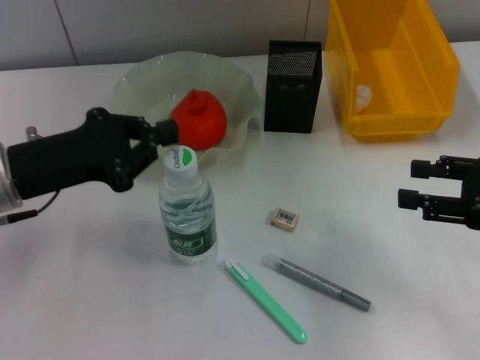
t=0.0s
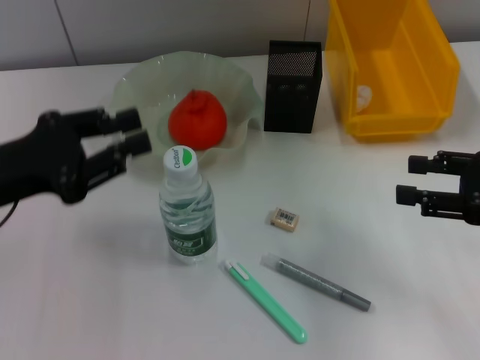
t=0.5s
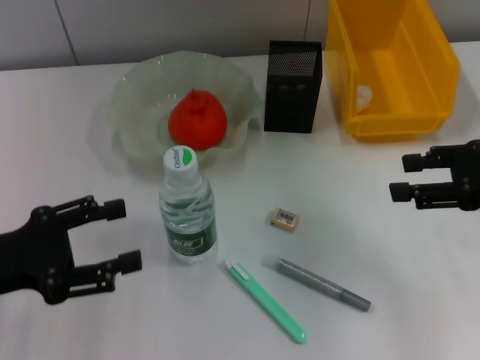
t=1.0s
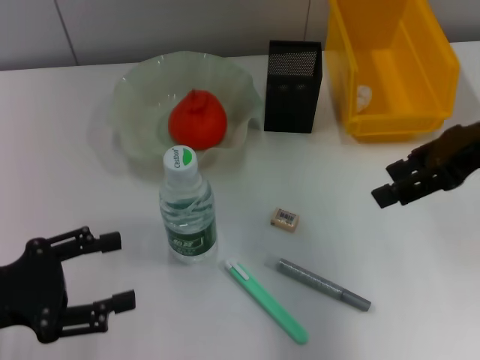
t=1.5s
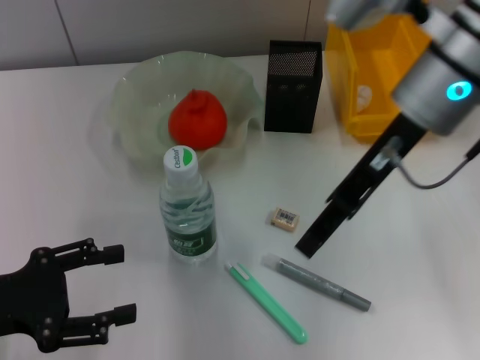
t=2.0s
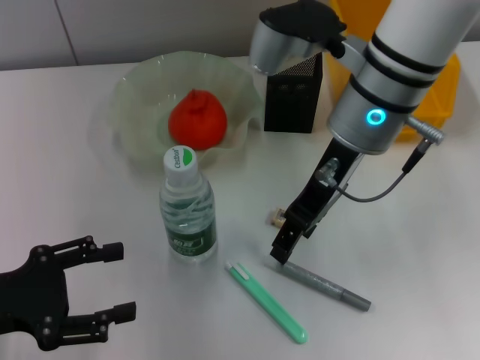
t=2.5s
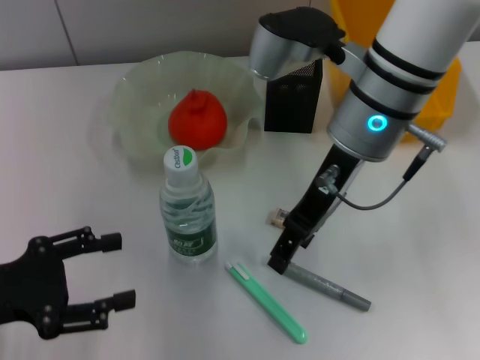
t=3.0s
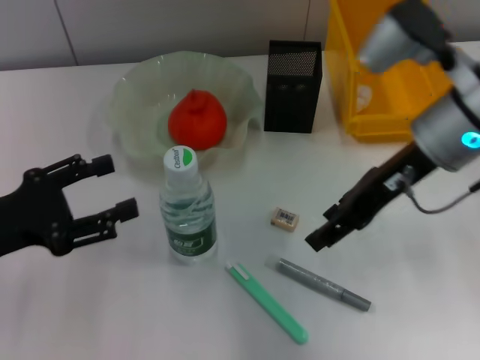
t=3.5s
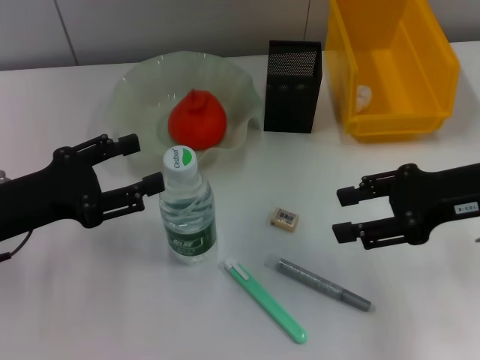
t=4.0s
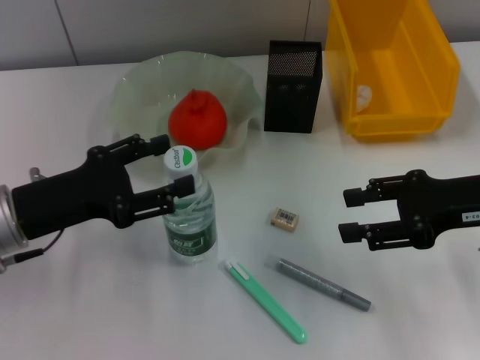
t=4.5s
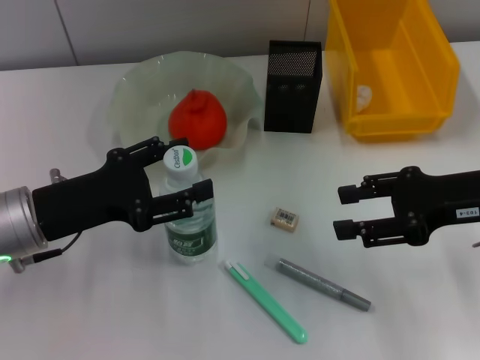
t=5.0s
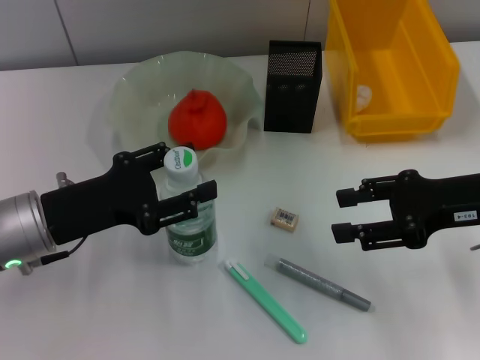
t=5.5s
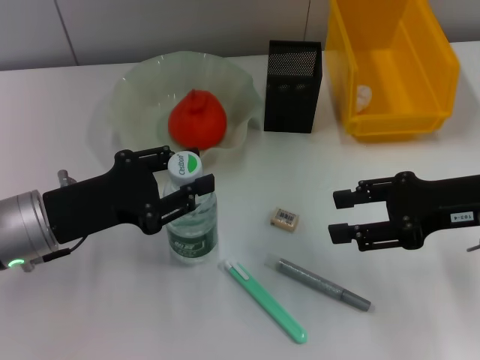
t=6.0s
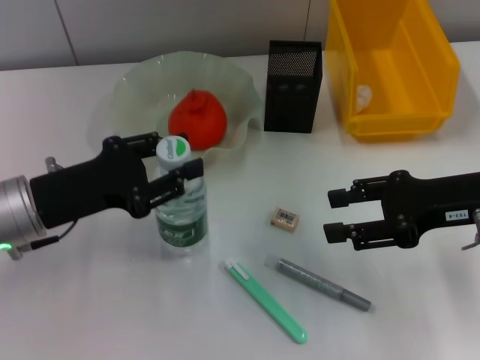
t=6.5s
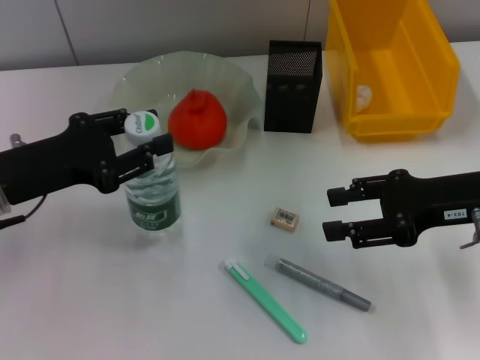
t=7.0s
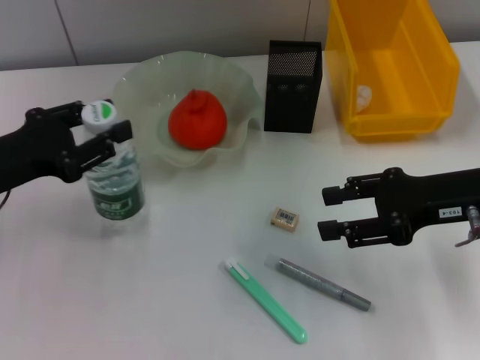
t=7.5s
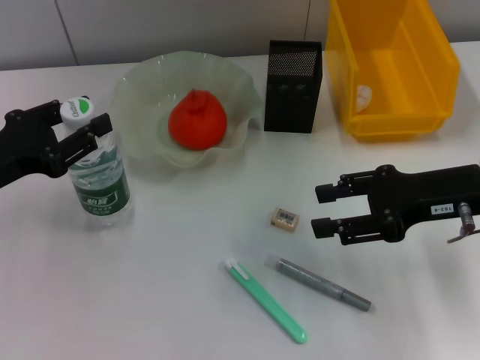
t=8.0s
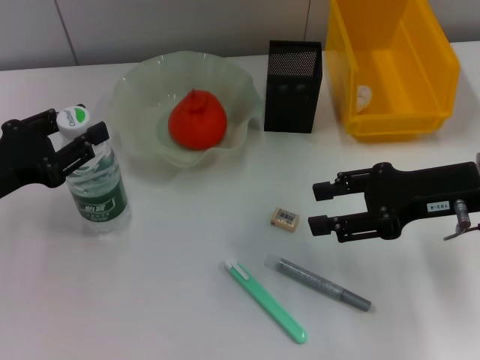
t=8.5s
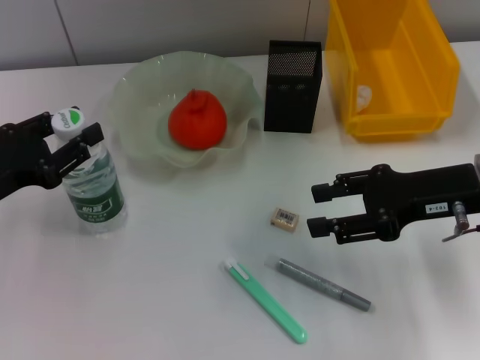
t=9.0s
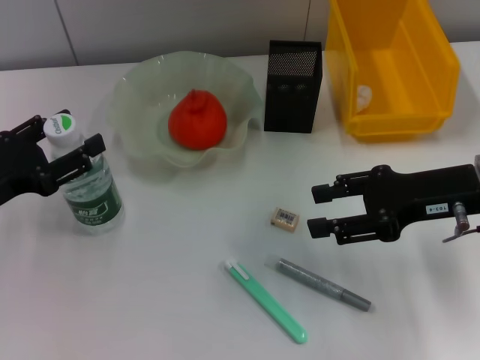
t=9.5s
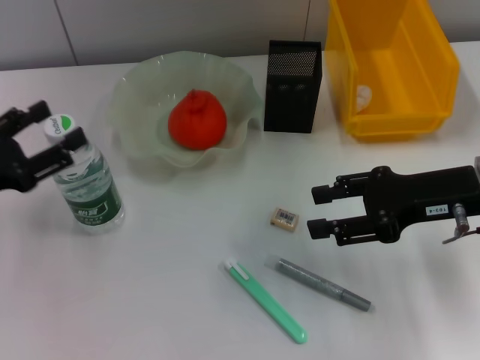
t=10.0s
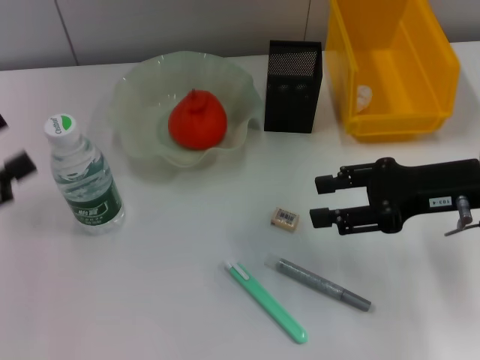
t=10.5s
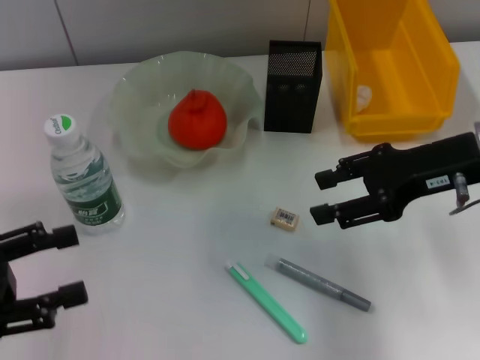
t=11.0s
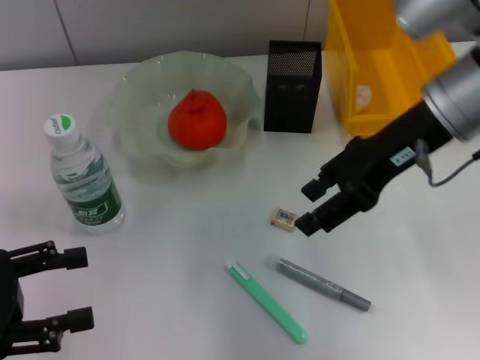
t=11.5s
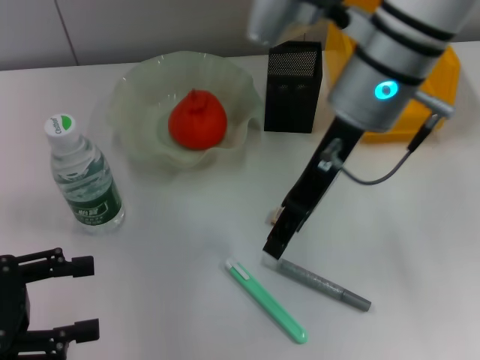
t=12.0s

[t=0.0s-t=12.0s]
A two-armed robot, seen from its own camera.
Step, t=0.0s to t=6.5s: Grab the water bottle with the left hand.
Step, t=7.0s to t=9.5s: Place the water bottle on the table with the left hand.
t=0.0s to t=2.0s: The left gripper shifts roughly 10 cm backward and to the left, and opens. The right gripper goes some 25 cm to the left, forward and upward.
t=2.0s to t=4.0s: The right gripper heads to the right, downward and backward, covering about 15 cm. Meanwhile the left gripper heads forward, covering some 5 cm.
t=4.0s to t=6.0s: The left gripper shifts by roughly 5 cm, and closes up.
t=6.0s to t=8.0s: The left gripper heads to the left, covering roughly 5 cm.
t=8.0s to t=10.0s: The left gripper opens its fingers.
t=10.0s to t=12.0s: The left gripper is displaced backward by some 5 cm; the right gripper shifts about 20 cm to the left, upward and forward.

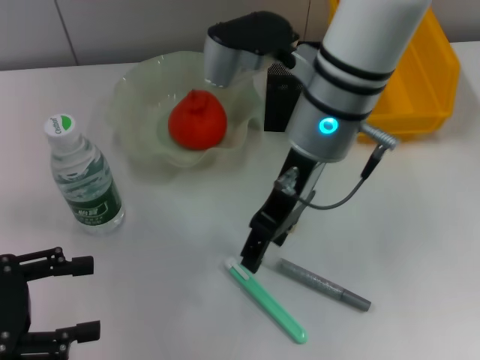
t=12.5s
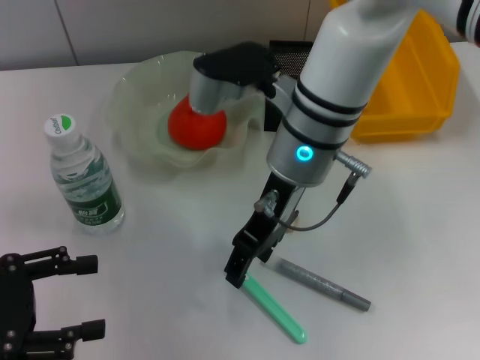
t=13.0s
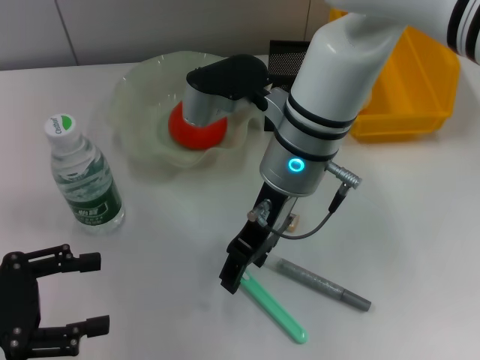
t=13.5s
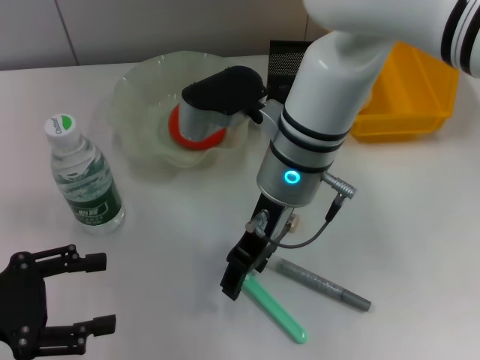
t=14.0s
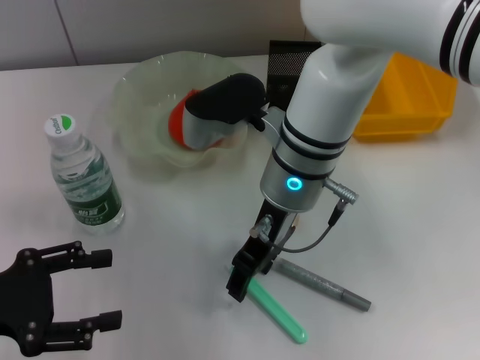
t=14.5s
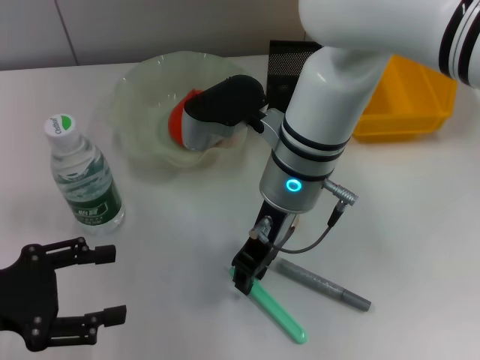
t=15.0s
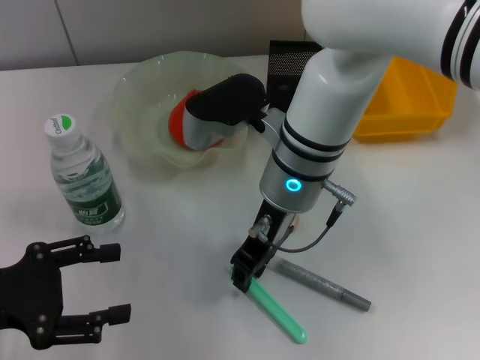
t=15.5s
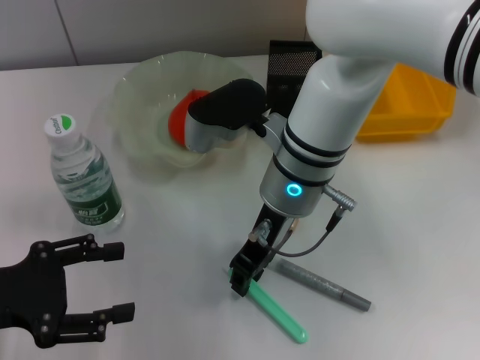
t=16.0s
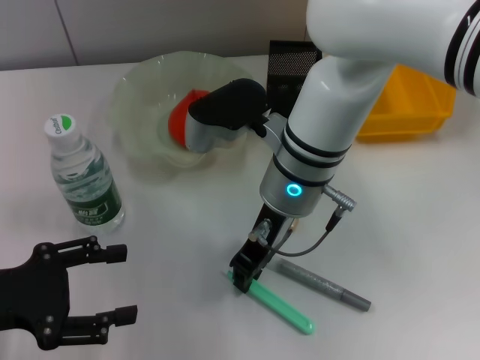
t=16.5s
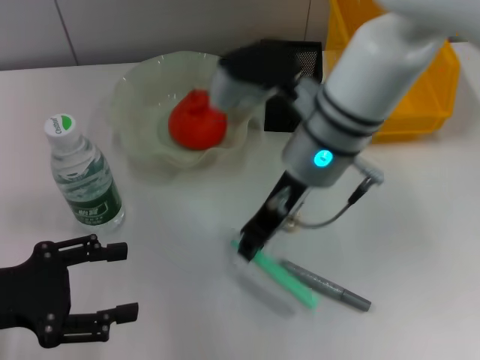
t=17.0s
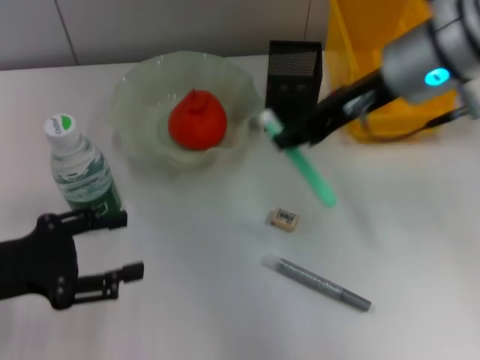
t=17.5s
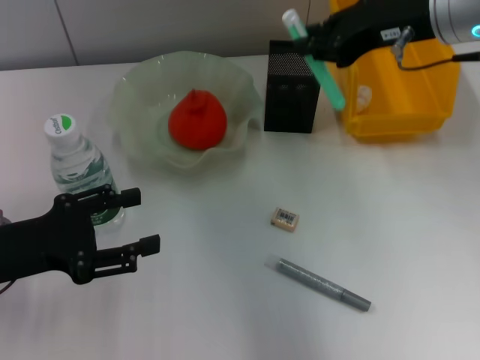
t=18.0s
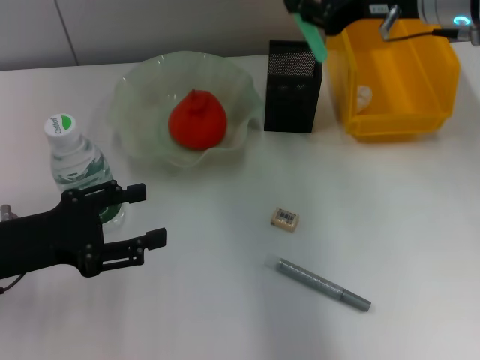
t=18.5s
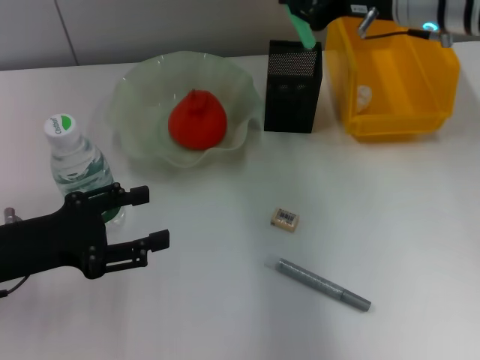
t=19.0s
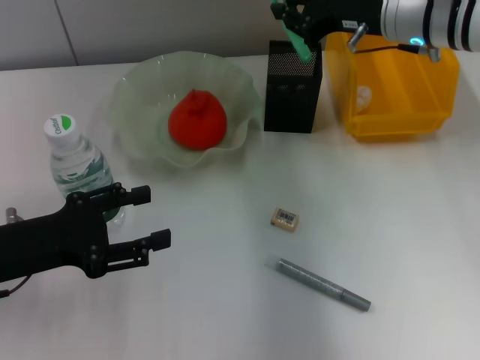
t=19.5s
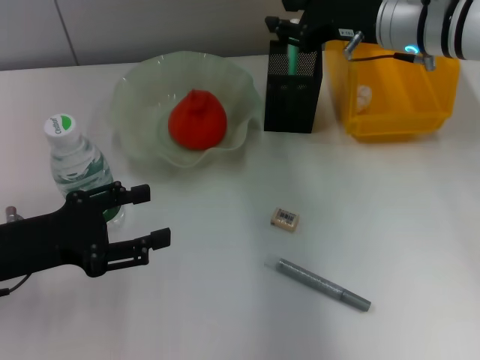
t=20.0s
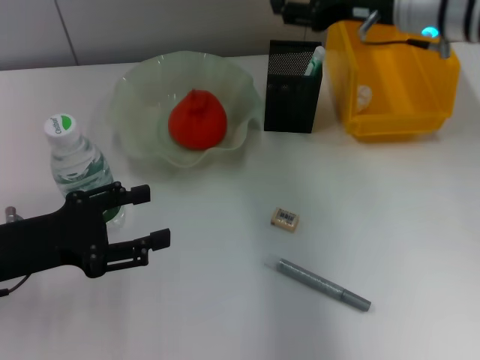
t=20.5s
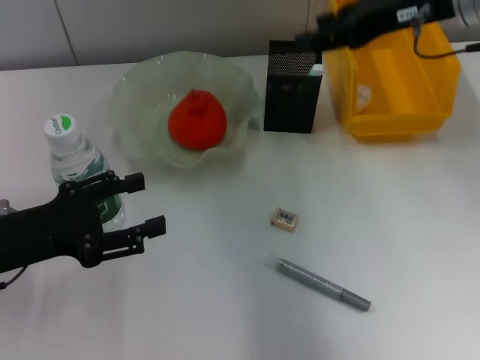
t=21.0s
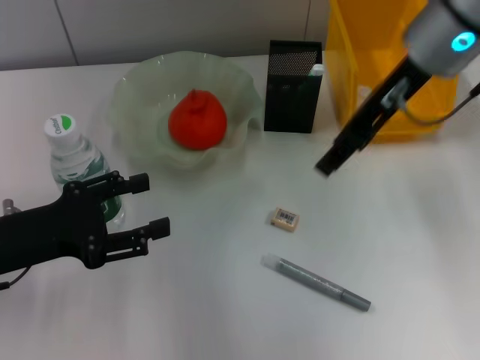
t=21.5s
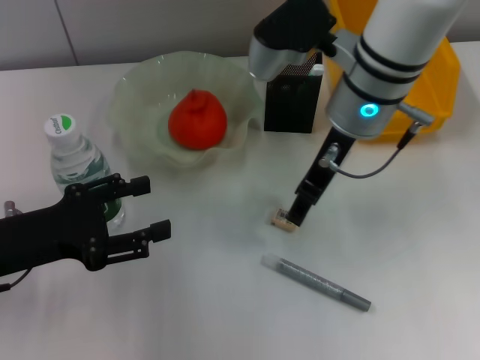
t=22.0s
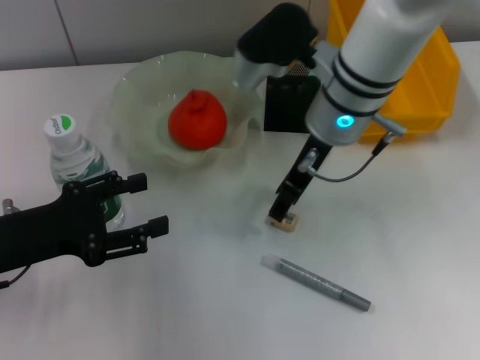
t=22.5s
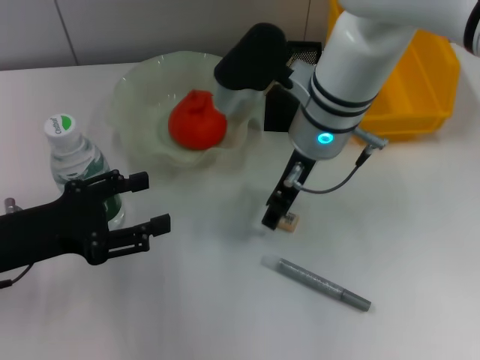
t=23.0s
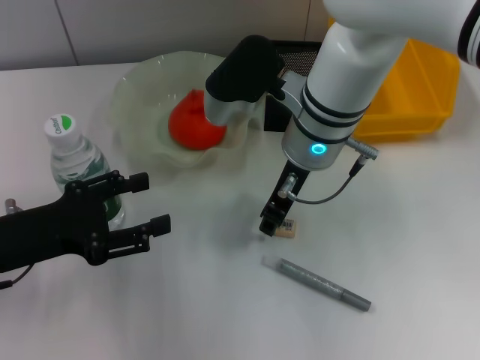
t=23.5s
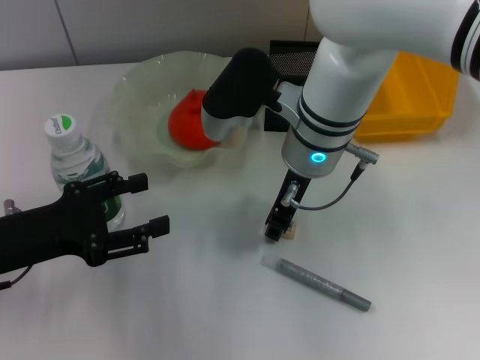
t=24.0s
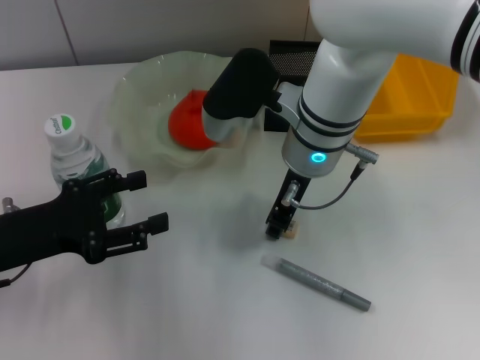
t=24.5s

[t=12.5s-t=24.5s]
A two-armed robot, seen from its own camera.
Step, t=12.5s to t=16.5s: Grab the blue utility knife with the right hand.
Step, t=17.0s to t=20.0s: Place the blue utility knife into the pen holder with the right hand.
t=12.5s to t=14.5s: The right gripper is displaced downward by roughly 5 cm.
t=14.5s to t=16.5s: The right gripper closes its fingers.
t=16.5s to t=18.5s: The right gripper moves to the right and upward, about 20 cm.
t=18.5s to t=20.5s: The right gripper opens its fingers.
t=20.5s to t=22.5s: The right gripper is displaced to the left by some 10 cm.
t=22.5s to t=24.5s: The right gripper closes.

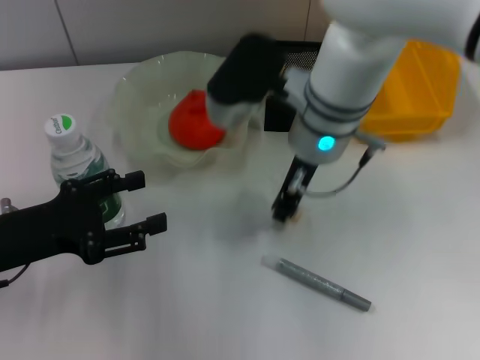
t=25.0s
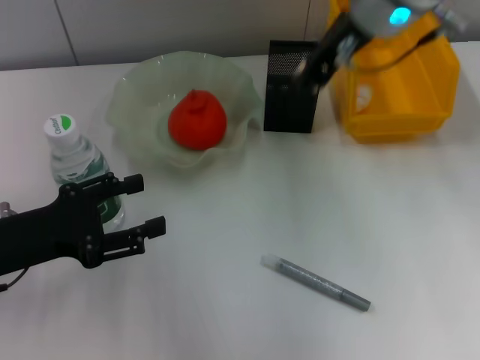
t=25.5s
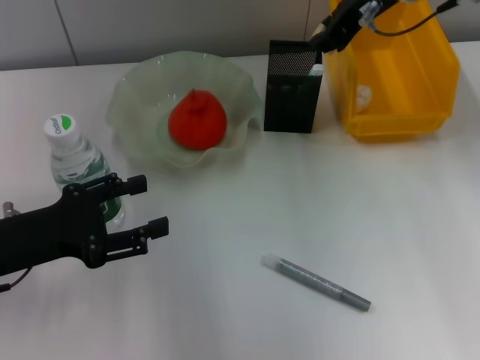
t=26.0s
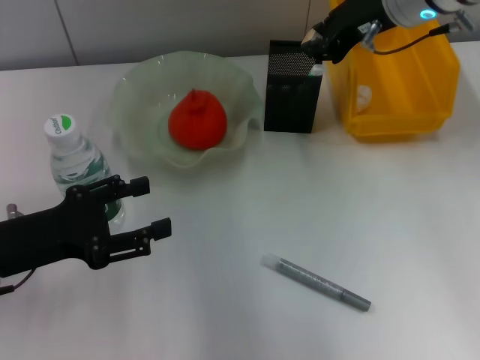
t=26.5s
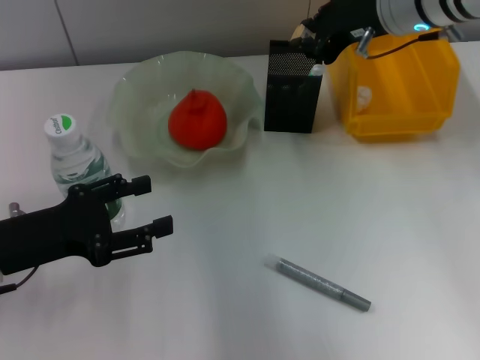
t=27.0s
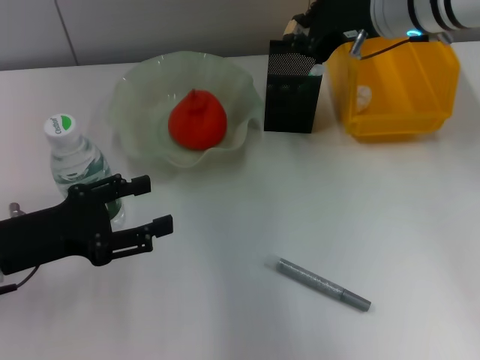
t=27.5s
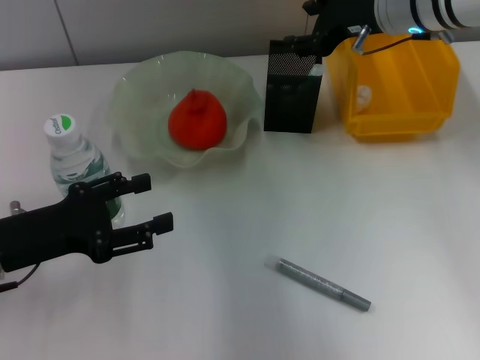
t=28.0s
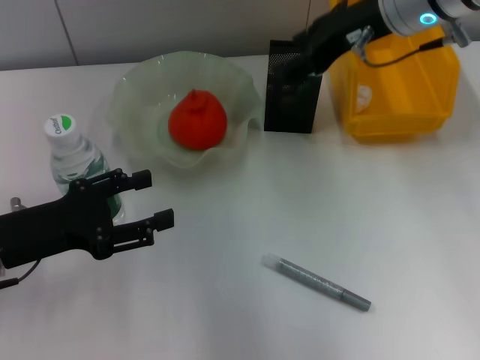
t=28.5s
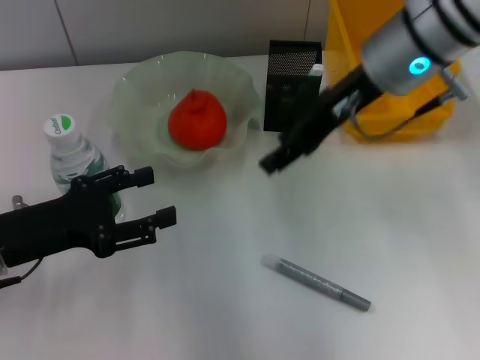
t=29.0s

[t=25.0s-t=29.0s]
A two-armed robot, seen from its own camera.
Step, t=25.0s to t=28.0s: Put the eraser into the pen holder with the right hand.
t=25.0s to t=27.0s: The right gripper is displaced to the right, forward and upward by some 15 cm.
t=27.0s to t=29.0s: The right gripper moves backward, some 5 cm, and opens its fingers.
